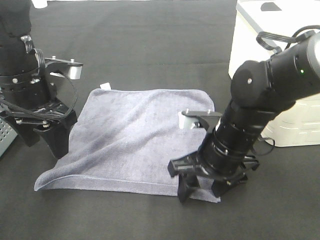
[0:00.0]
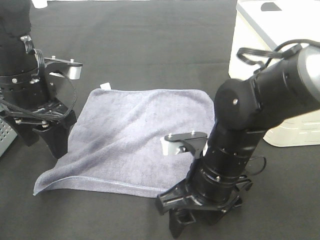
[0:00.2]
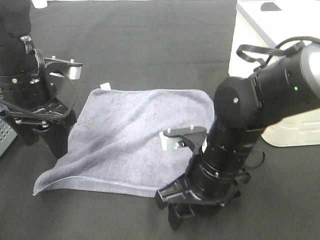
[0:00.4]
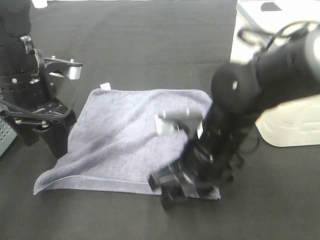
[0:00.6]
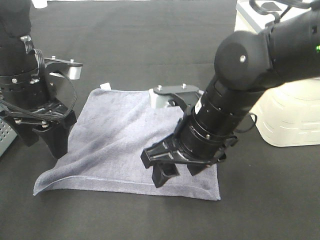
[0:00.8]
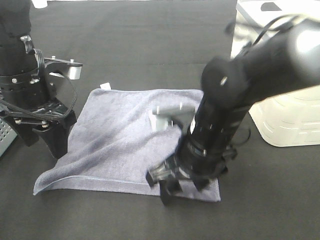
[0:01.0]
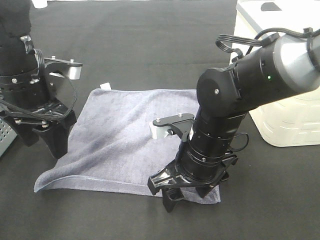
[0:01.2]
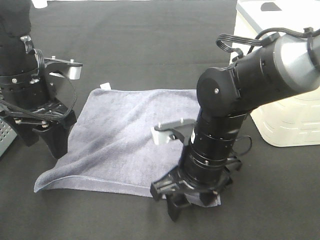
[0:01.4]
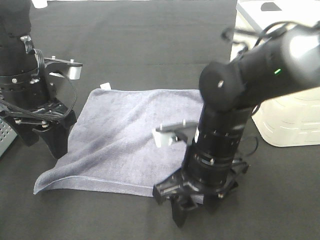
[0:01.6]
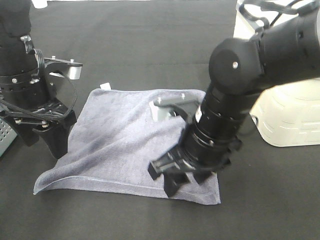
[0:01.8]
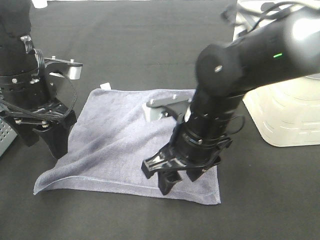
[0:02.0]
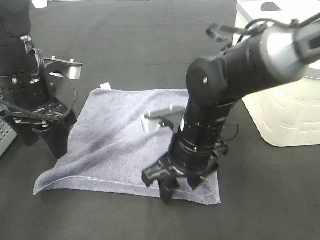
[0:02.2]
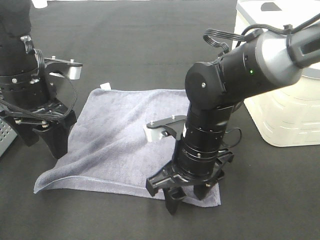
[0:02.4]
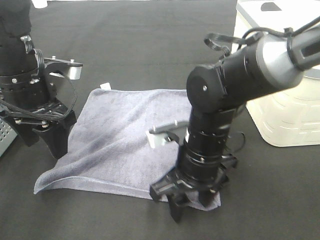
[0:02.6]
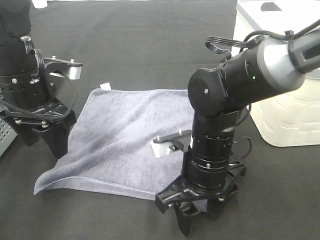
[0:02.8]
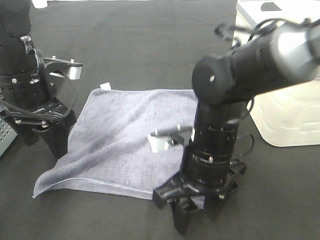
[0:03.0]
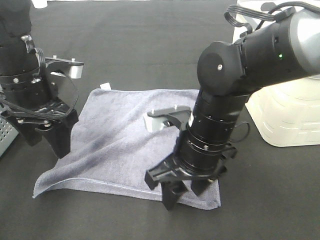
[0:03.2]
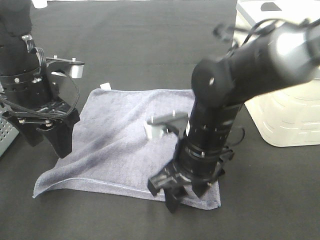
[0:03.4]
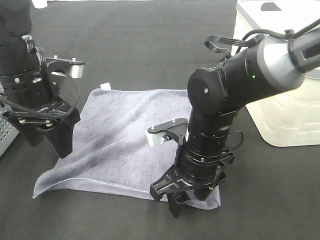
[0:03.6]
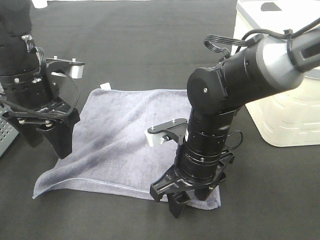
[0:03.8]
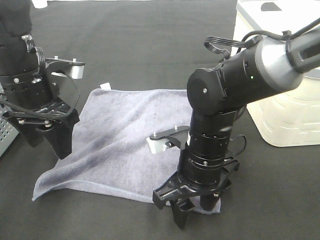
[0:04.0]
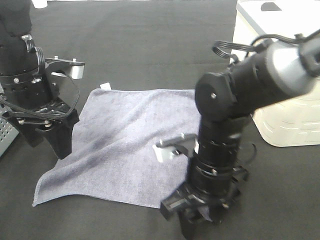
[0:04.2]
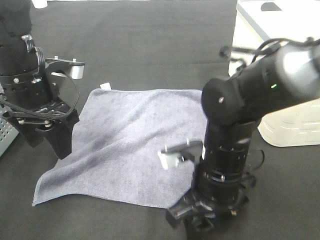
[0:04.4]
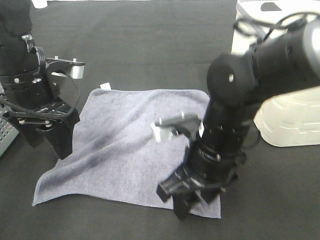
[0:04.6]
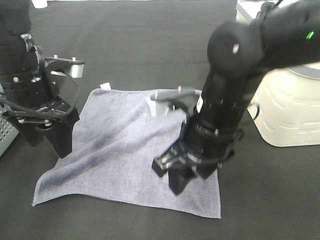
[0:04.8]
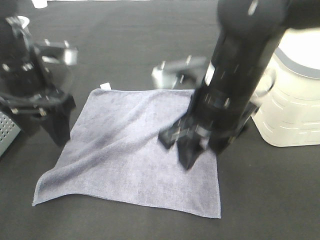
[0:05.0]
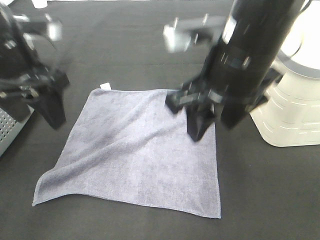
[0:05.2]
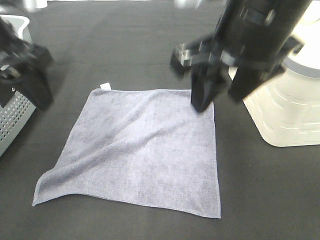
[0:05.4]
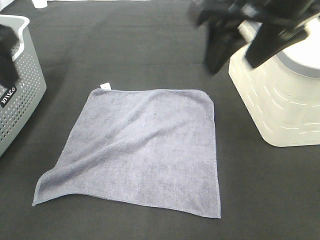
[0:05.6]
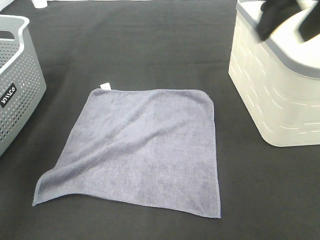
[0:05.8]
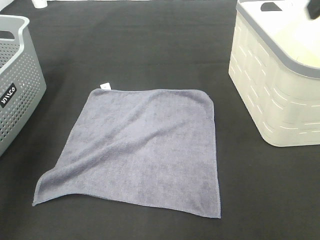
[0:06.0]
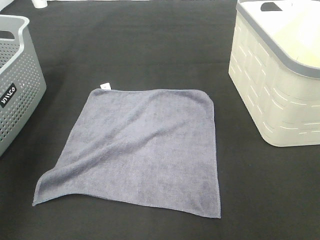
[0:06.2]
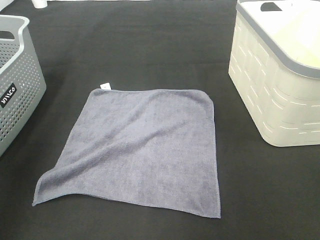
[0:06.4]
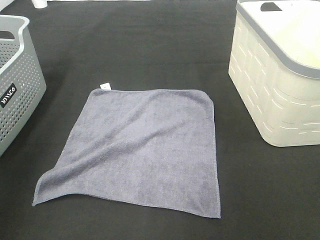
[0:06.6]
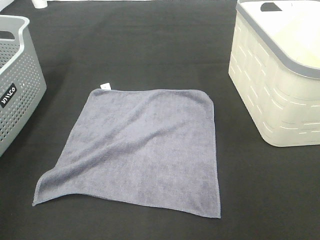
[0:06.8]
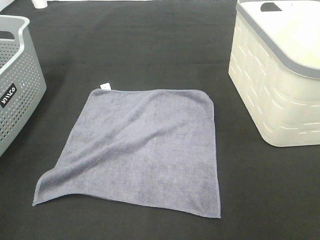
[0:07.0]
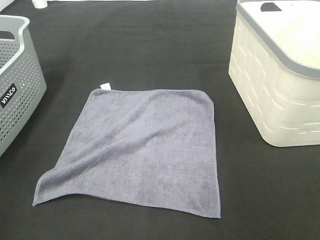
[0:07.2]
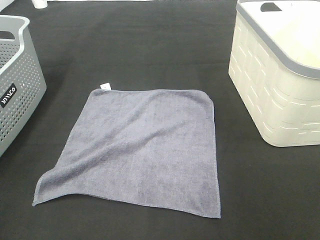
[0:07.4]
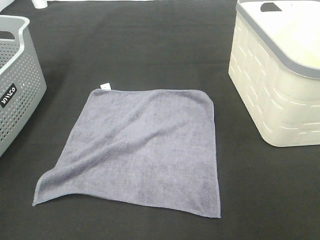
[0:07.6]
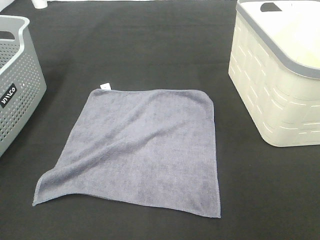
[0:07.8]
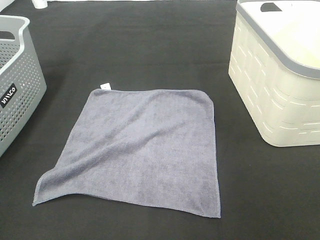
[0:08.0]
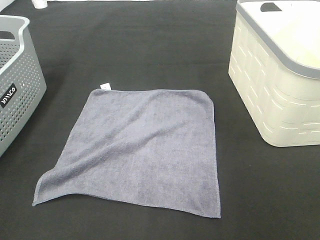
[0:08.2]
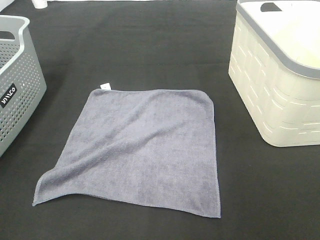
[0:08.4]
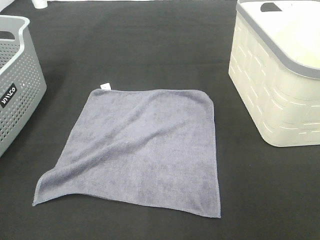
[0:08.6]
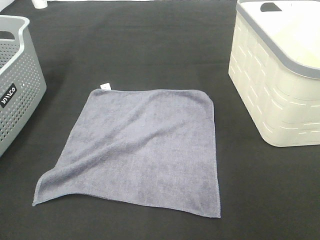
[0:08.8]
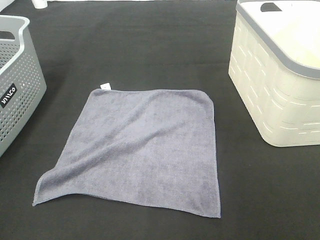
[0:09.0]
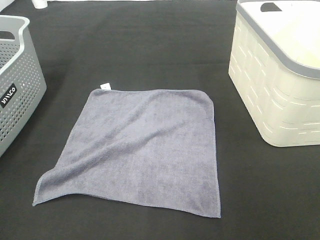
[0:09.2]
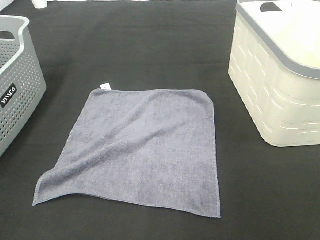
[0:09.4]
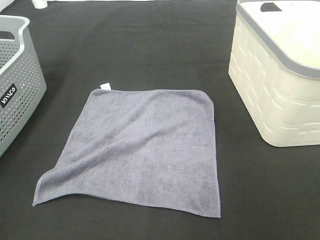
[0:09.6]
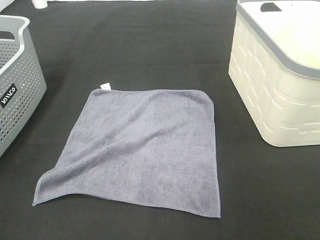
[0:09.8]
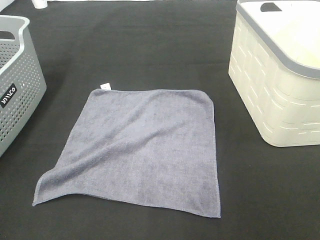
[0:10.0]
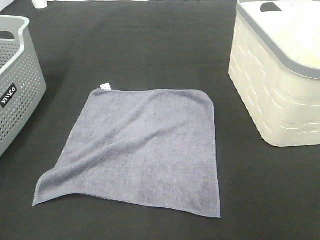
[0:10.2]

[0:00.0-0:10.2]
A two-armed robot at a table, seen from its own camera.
Task of the whole recording: Remove the towel and place it.
0:01.4 to 0:03.0: There are only small adjustments of the grippers.
0:04.4 to 0:05.8: The right gripper heads upward, covering approximately 30 cm. Meanwhile the left gripper heads upward and to the left, covering roughly 20 cm.
0:05.8 to 0:07.2: The right gripper travels backward and to the right by about 25 cm.
0:08.8 to 0:10.2: Both grippers stay put.

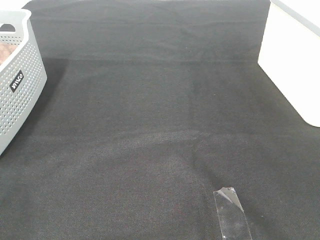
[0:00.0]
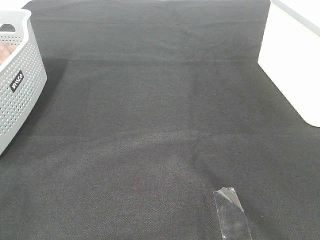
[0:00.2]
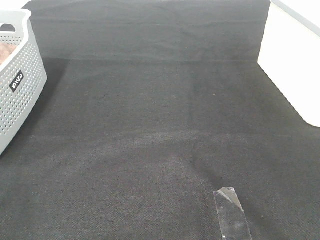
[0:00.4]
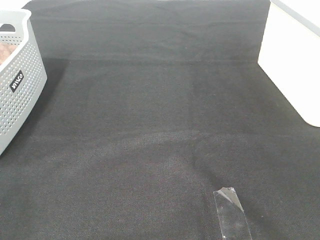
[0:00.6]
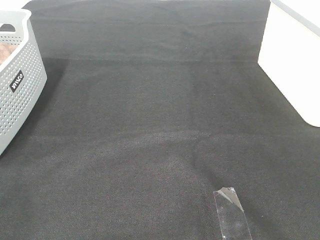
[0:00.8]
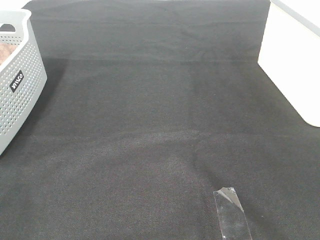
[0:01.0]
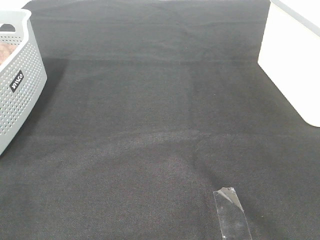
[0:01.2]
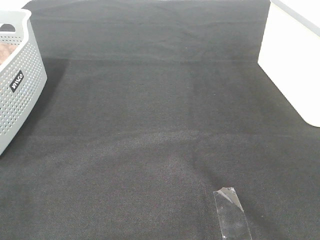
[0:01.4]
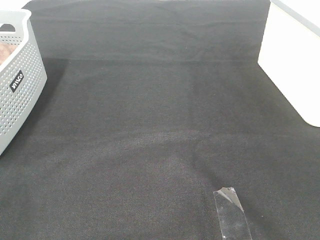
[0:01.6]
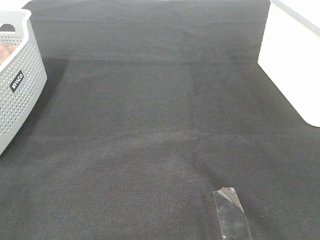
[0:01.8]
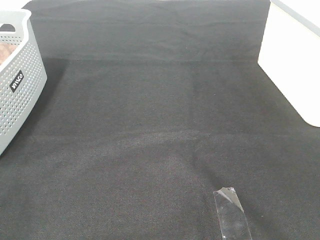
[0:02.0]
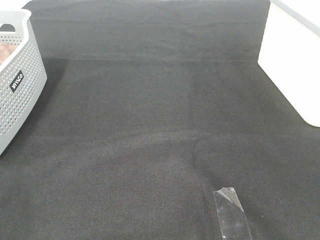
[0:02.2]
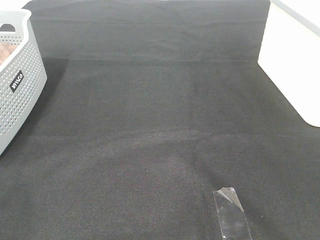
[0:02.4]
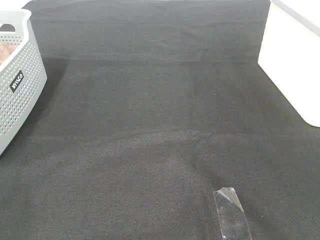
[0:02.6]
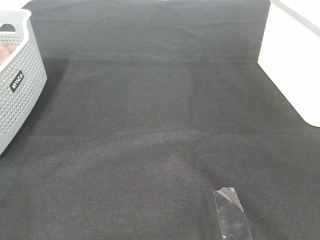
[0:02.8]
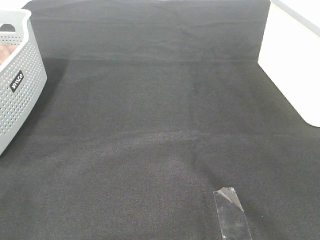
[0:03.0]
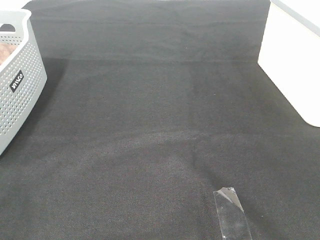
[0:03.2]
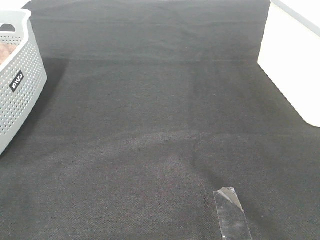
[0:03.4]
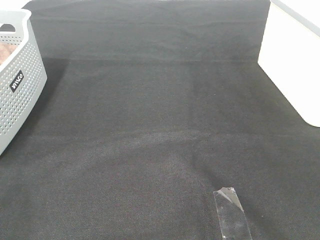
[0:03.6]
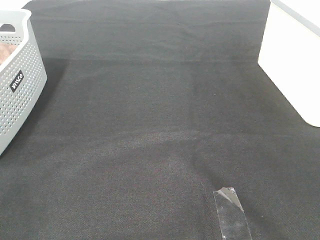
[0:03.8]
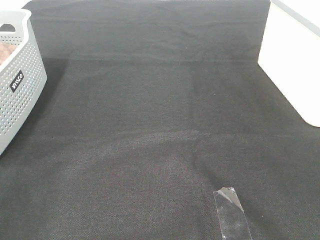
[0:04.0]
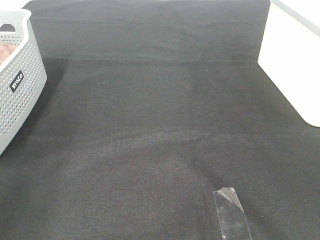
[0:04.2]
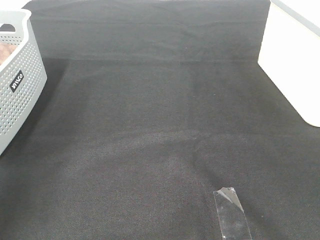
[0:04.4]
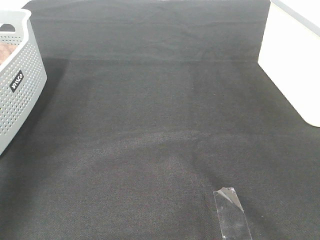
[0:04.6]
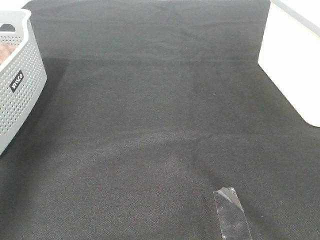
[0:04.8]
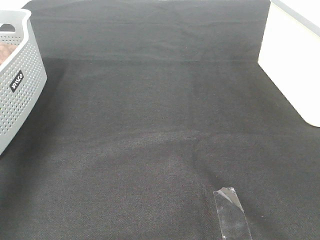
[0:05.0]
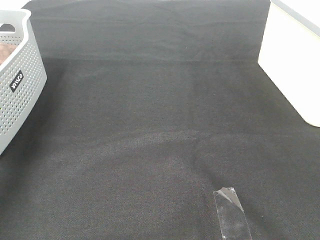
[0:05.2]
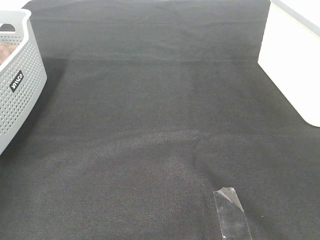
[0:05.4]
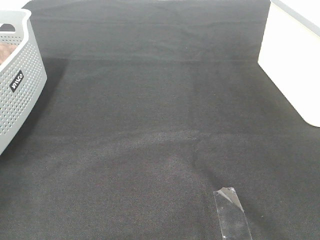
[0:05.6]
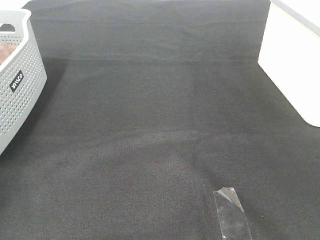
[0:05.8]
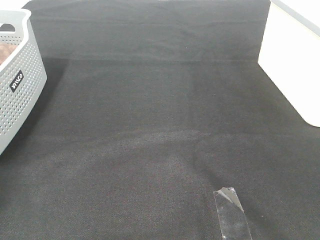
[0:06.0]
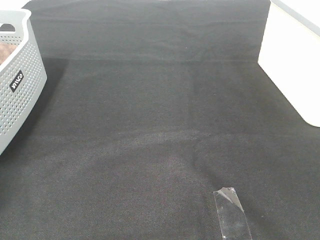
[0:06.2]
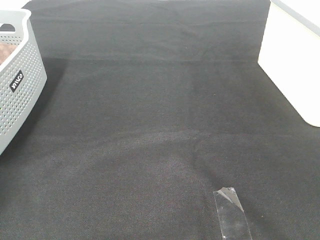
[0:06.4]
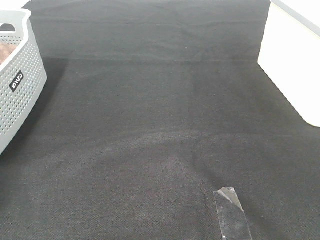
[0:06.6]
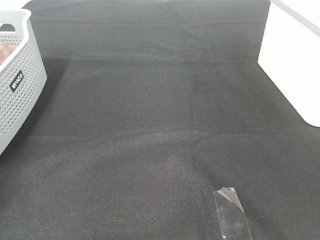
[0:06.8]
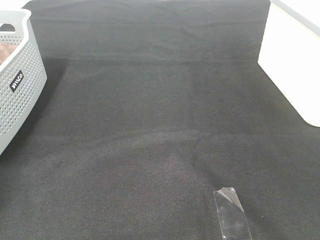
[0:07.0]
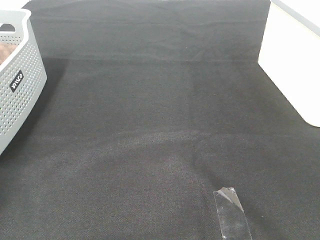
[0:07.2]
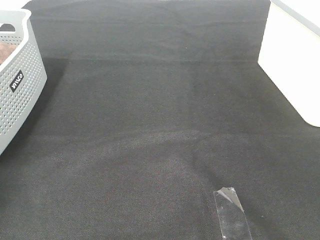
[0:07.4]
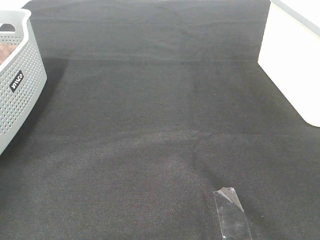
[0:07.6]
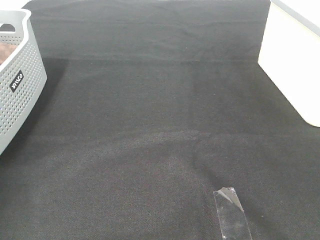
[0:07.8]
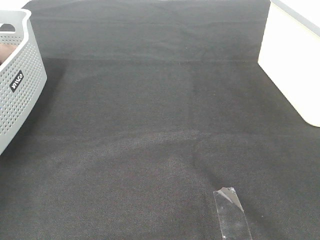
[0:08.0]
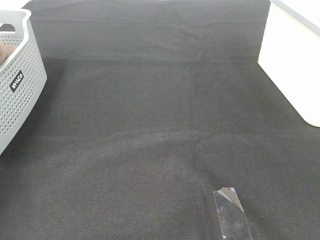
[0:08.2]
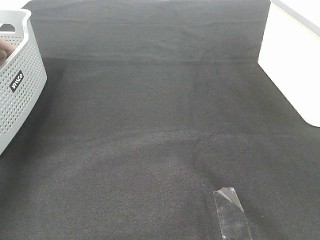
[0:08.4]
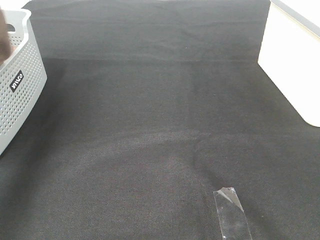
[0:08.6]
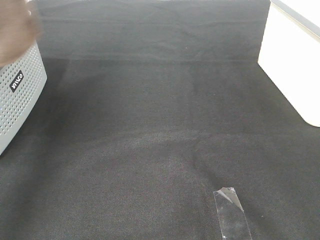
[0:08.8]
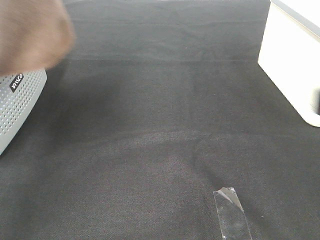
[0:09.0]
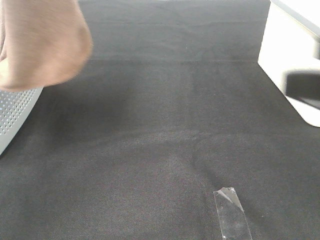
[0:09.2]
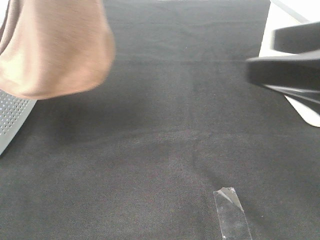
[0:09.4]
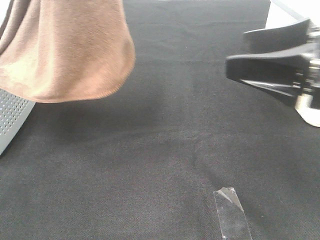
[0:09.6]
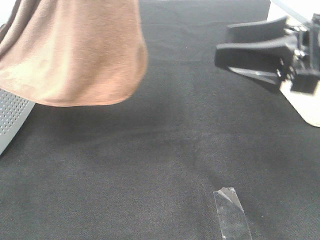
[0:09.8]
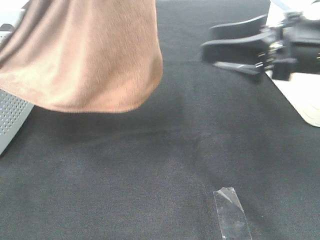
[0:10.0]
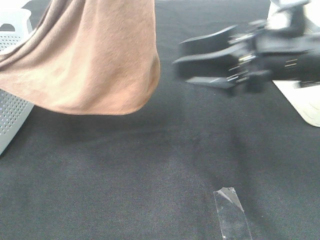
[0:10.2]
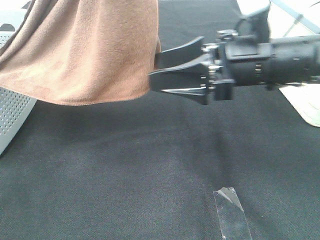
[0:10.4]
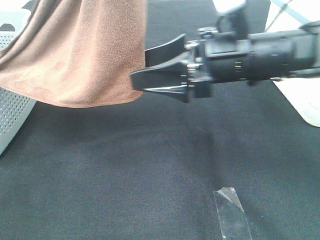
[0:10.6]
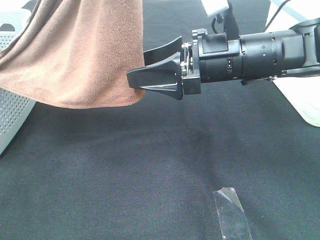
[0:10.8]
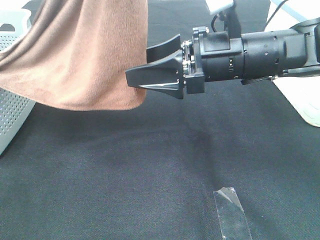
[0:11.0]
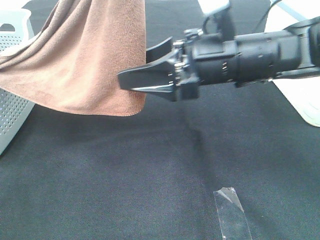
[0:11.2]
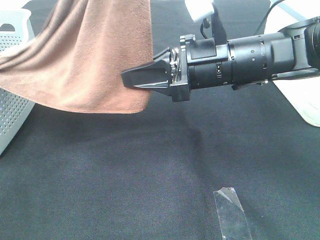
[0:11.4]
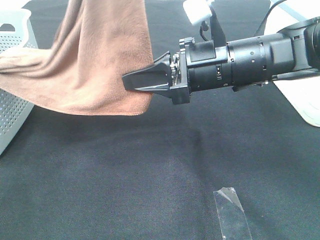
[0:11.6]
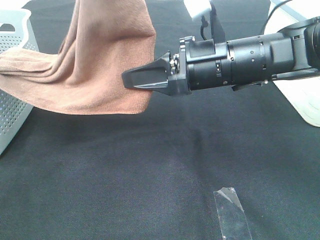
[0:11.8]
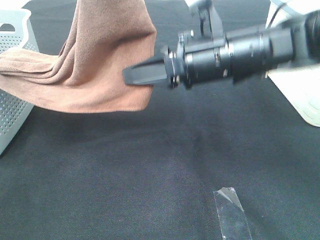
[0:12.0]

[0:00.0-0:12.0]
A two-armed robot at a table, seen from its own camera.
Task of the whole recording: Remove the towel and place it.
Step, 0:08.8 to 0:11.6: Right hand: grab a corner of the brown towel and straighten it.
0:00.0 to 0:03.0: Neither gripper changes place.
0:03.0 to 0:04.4: The left gripper heads forward and upward, covering some 20 cm.
0:04.4 to 0:06.0: The left gripper travels forward, downward and to the left by approximately 35 cm.
0:07.6 to 0:09.0: The left gripper goes about 30 cm upward, to the right and backward. Meanwhile the right gripper travels forward by roughly 10 cm.
0:09.0 to 0:10.4: The left gripper heads to the right, covering roughly 10 cm, while the right gripper moves forward, to the left and downward, about 25 cm.
0:10.4 to 0:12.0: The right gripper closes its fingers.
